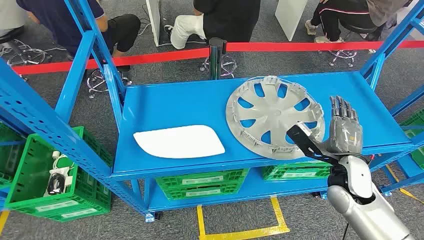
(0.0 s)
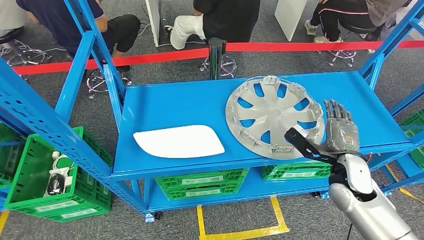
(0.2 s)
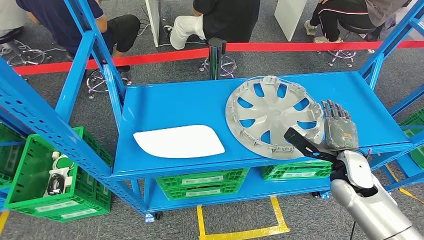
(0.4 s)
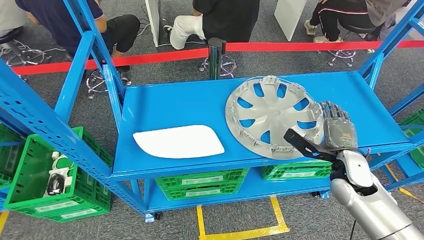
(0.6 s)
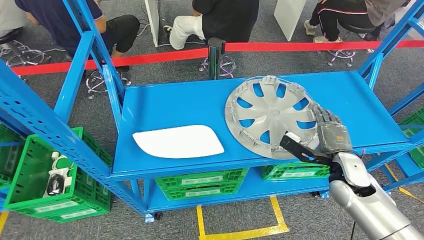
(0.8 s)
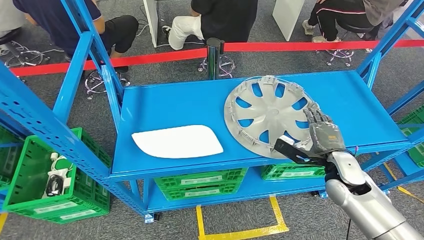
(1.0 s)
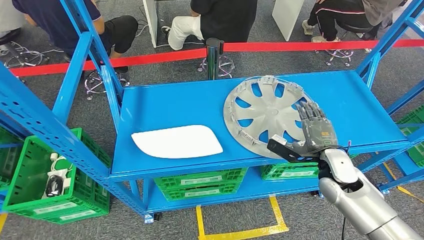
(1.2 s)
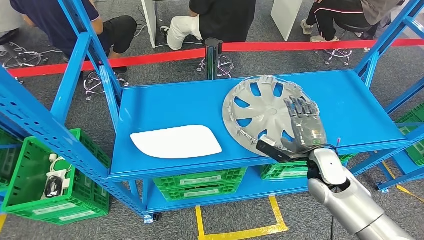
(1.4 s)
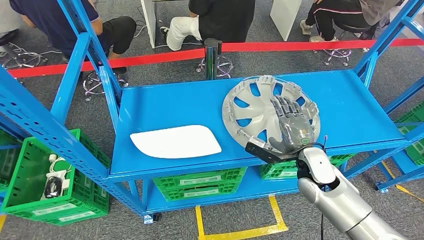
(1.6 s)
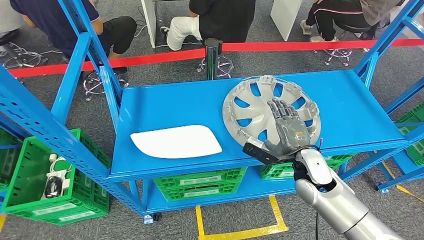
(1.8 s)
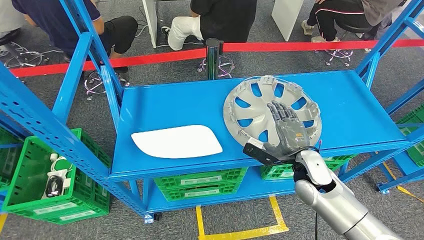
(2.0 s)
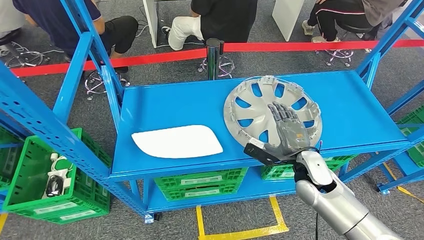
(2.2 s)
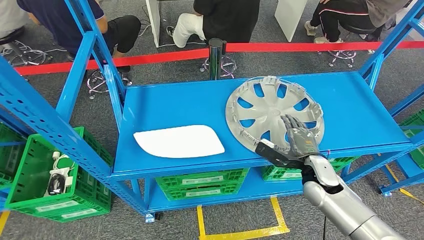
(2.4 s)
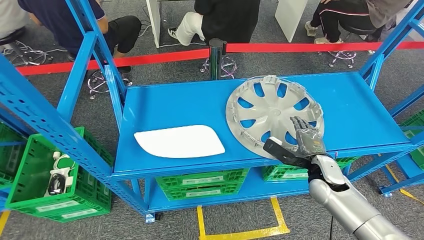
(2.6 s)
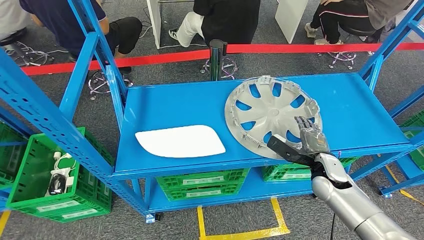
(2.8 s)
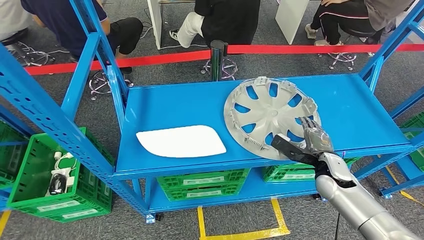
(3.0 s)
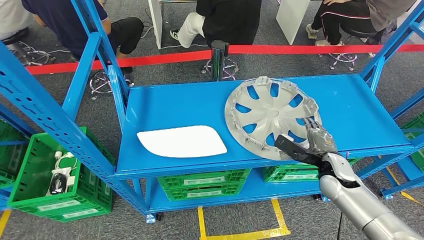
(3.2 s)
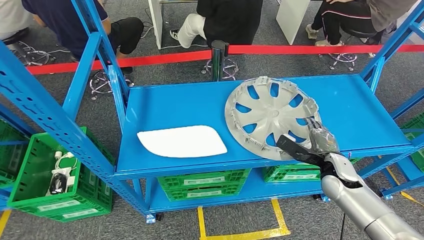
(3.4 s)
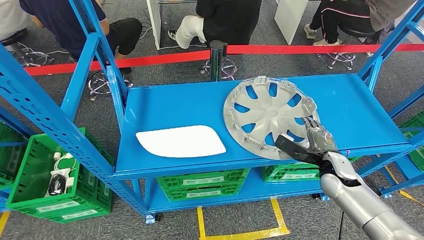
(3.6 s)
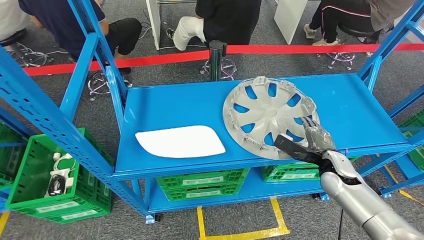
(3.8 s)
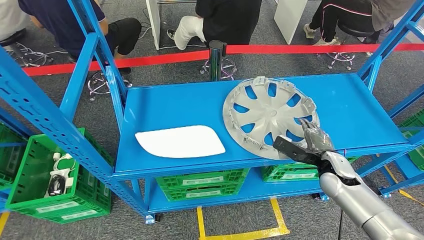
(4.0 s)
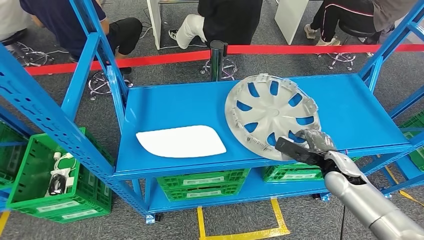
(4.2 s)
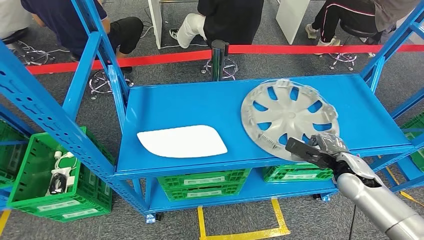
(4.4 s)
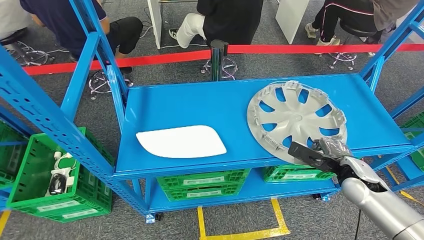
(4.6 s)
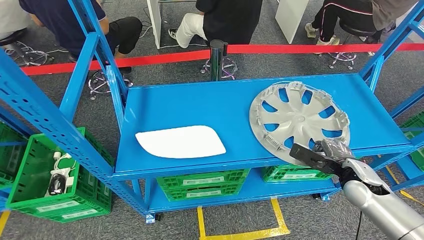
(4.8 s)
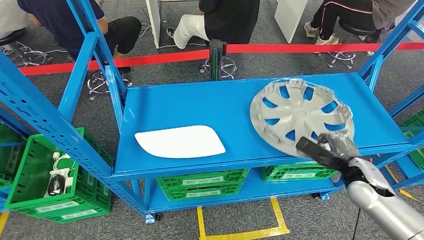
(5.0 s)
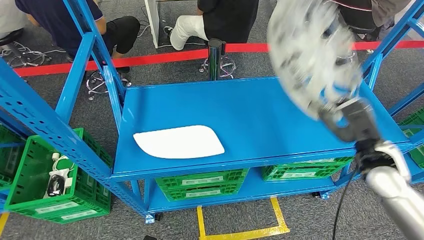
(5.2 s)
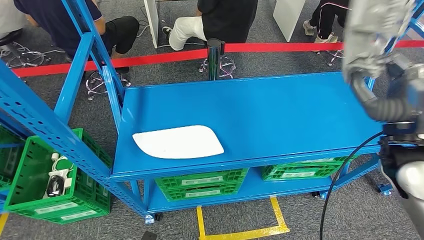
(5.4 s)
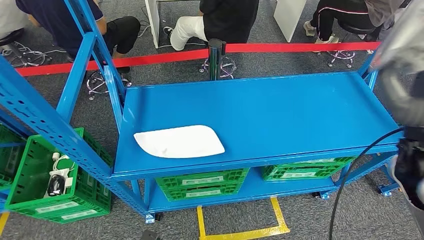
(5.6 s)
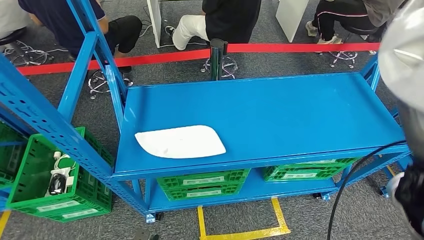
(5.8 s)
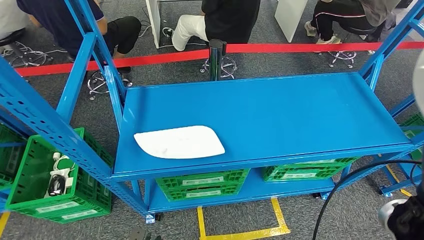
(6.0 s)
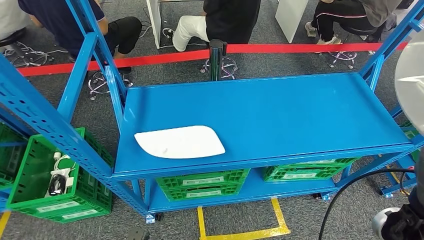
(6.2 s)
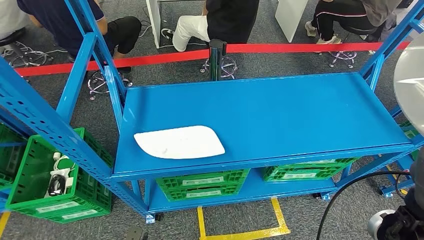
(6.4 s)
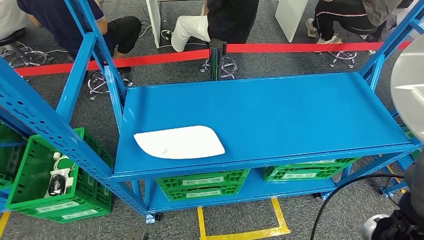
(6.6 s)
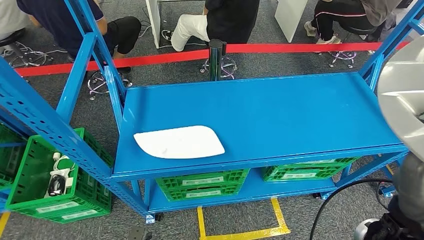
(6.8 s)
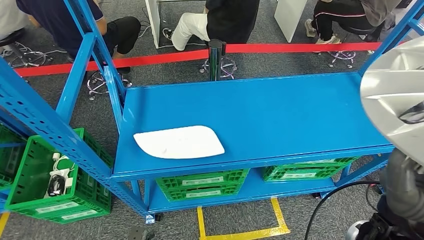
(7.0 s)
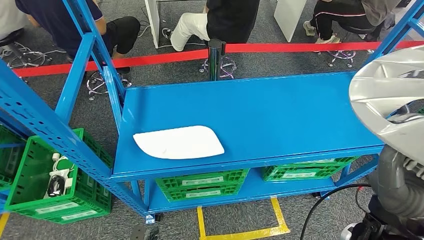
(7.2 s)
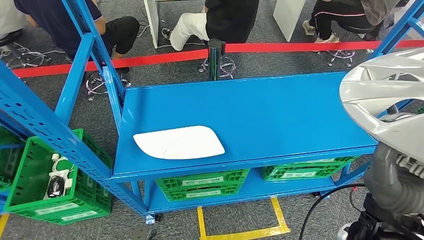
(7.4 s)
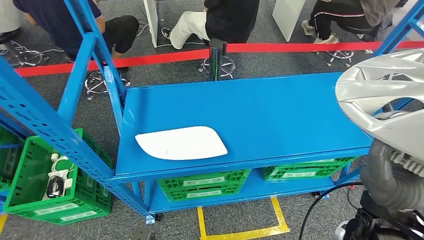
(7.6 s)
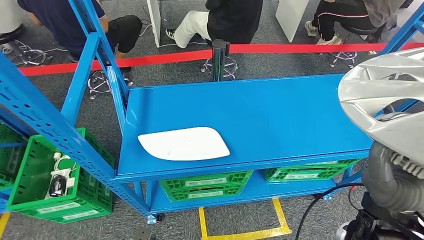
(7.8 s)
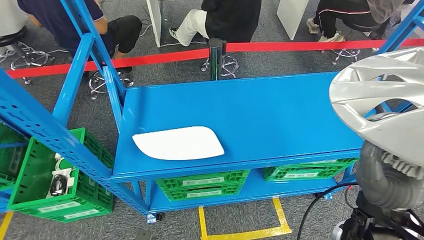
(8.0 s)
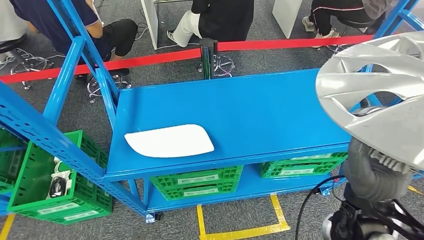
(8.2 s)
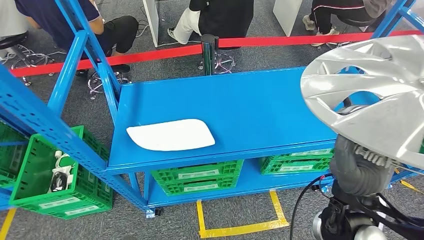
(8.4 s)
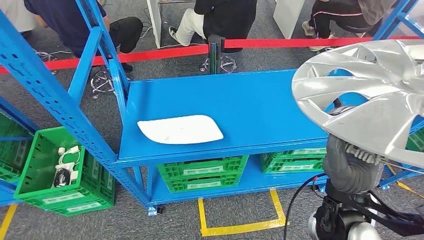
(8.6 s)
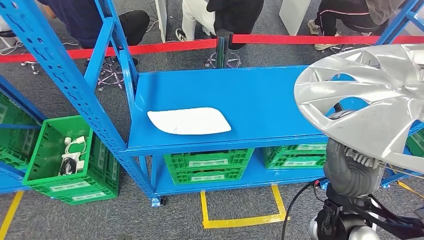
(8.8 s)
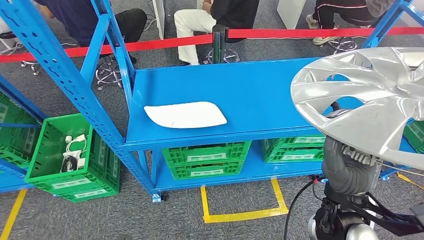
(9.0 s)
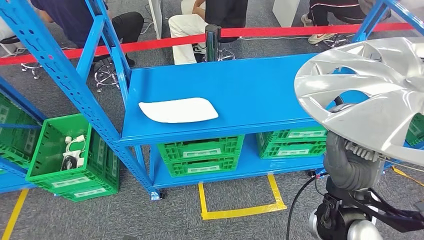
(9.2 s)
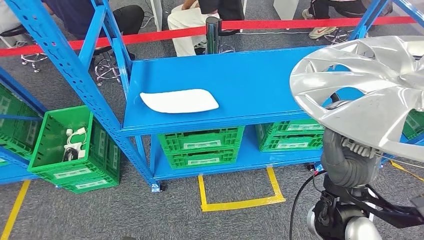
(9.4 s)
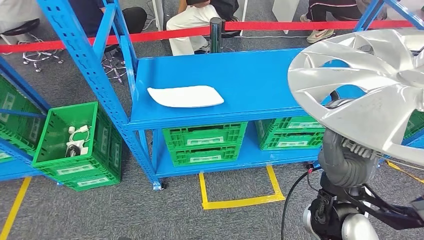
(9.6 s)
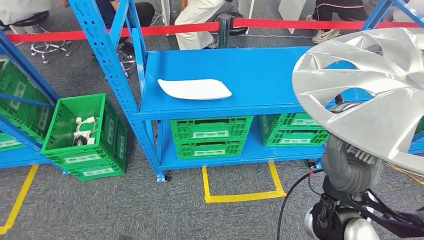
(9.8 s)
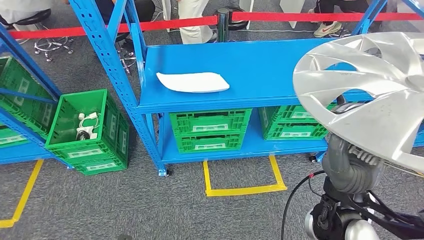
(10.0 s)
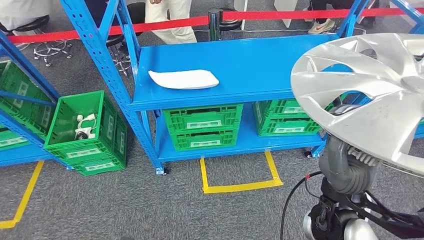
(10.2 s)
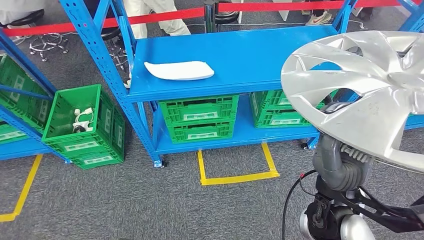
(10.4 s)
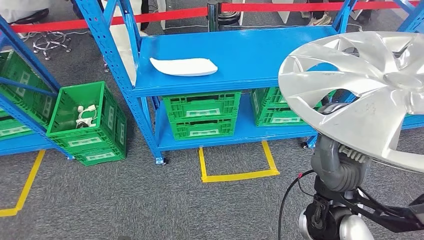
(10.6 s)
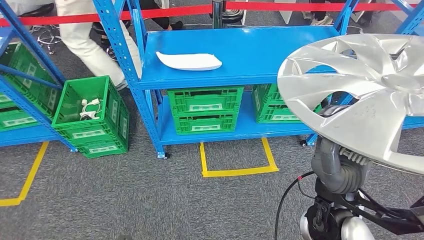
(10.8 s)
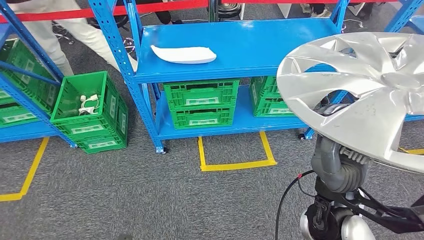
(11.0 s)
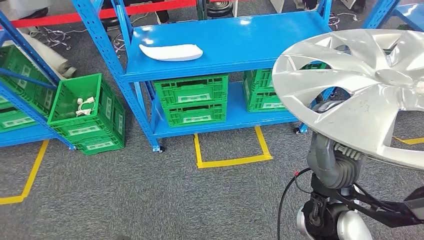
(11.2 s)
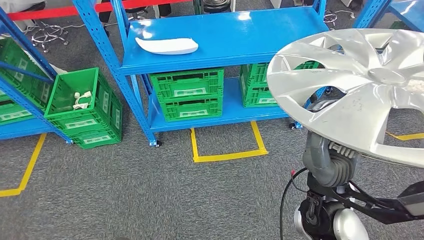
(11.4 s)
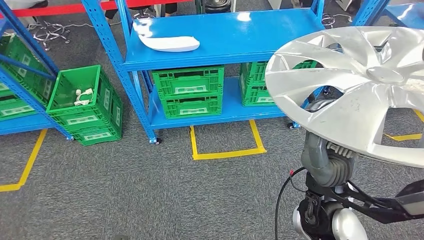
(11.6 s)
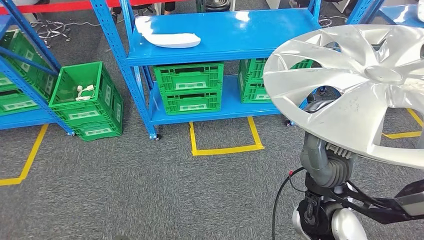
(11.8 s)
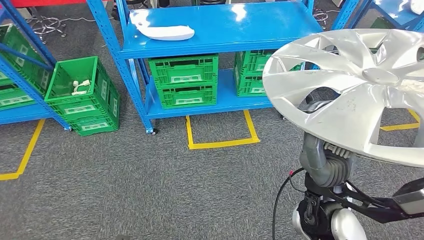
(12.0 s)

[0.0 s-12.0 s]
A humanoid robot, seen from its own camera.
Step, 0.0 to 6.8 s: Pick up the small component from the shelf.
3.0 to 4.4 s: The right hand ends up some 5 cm from where it was.

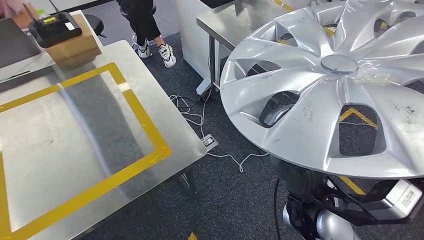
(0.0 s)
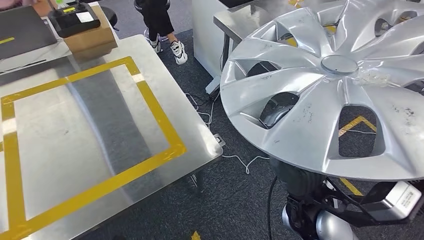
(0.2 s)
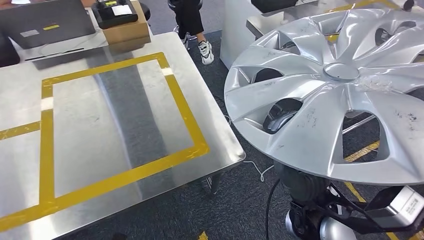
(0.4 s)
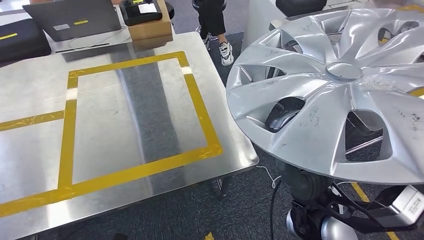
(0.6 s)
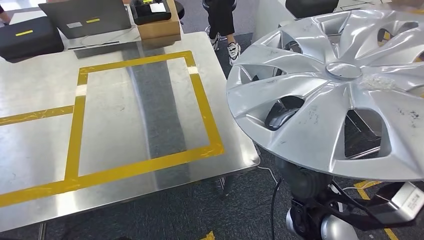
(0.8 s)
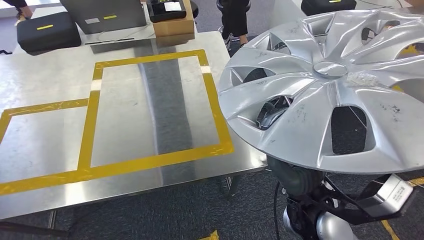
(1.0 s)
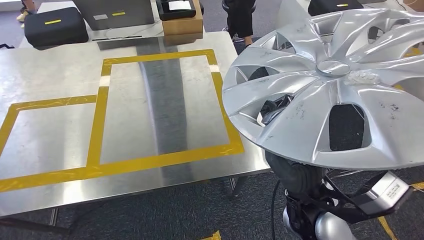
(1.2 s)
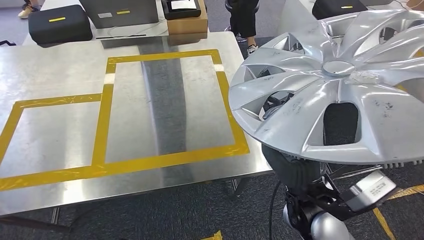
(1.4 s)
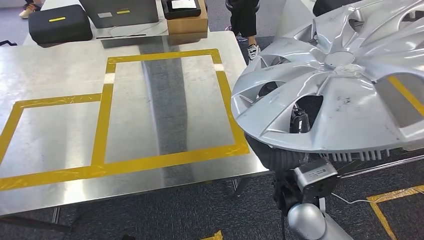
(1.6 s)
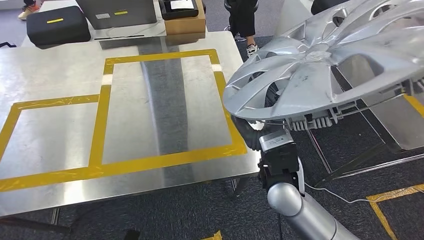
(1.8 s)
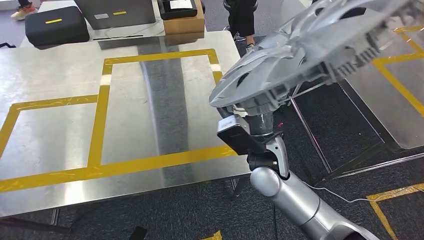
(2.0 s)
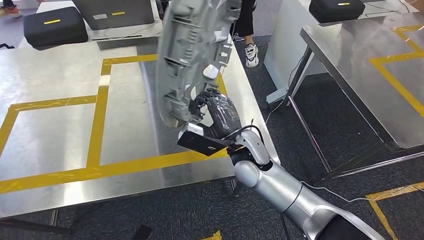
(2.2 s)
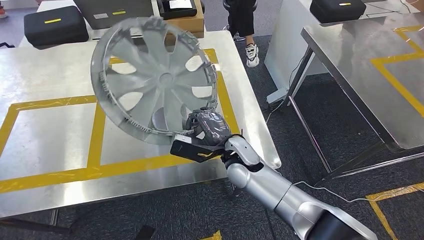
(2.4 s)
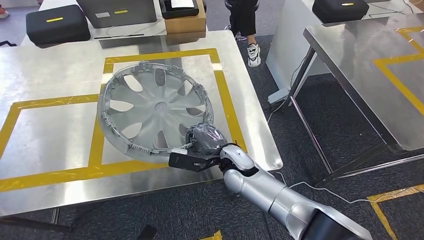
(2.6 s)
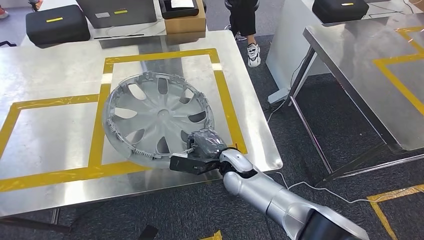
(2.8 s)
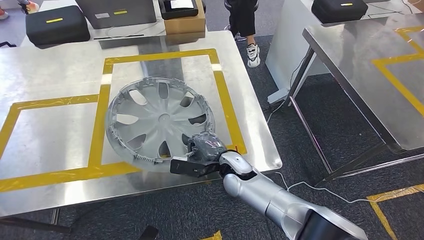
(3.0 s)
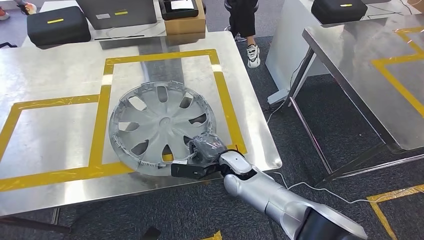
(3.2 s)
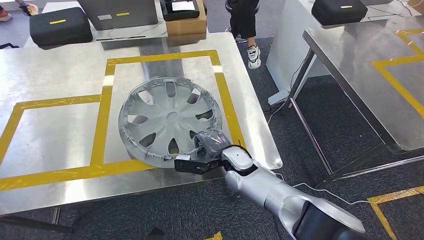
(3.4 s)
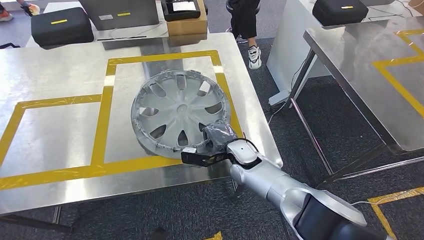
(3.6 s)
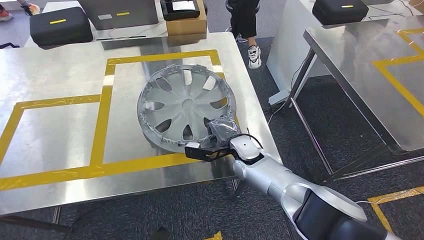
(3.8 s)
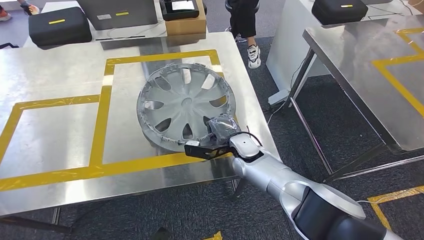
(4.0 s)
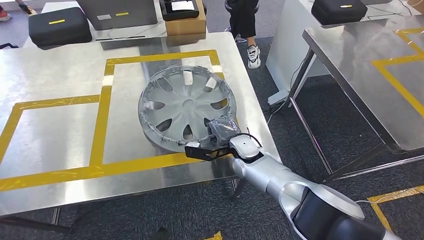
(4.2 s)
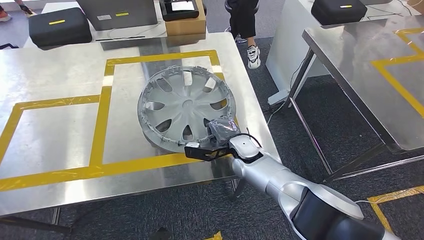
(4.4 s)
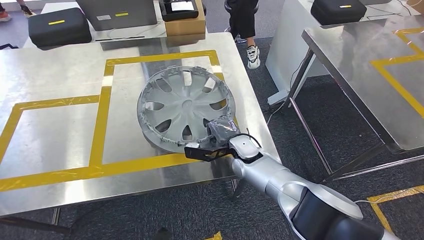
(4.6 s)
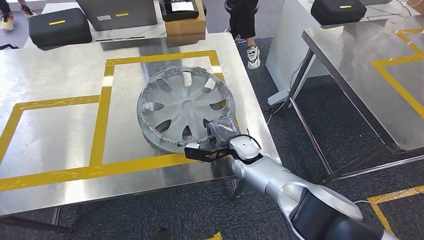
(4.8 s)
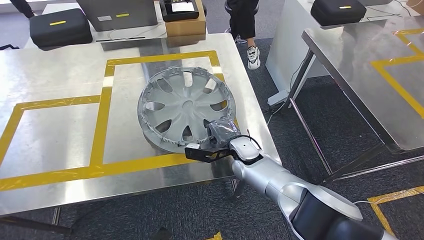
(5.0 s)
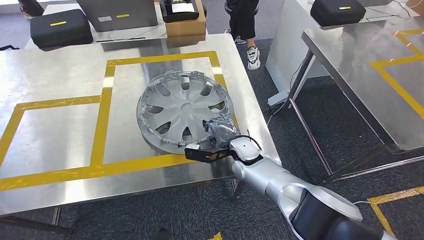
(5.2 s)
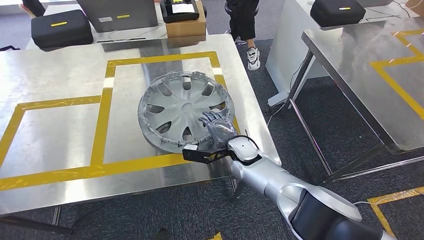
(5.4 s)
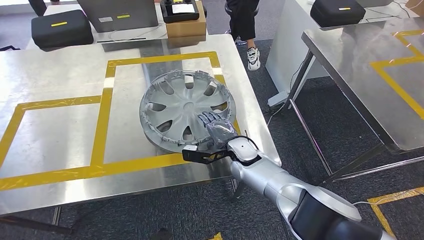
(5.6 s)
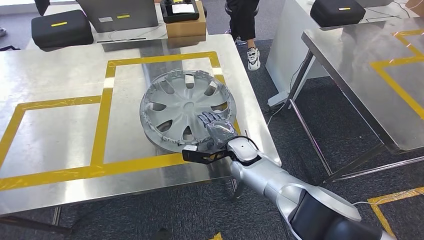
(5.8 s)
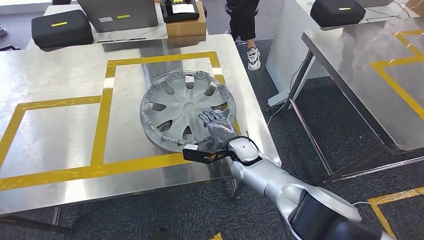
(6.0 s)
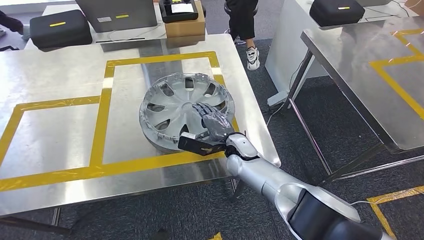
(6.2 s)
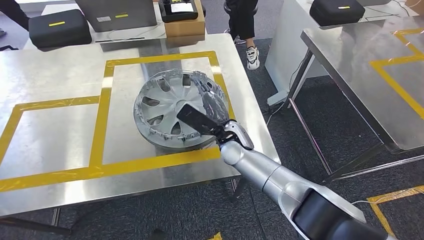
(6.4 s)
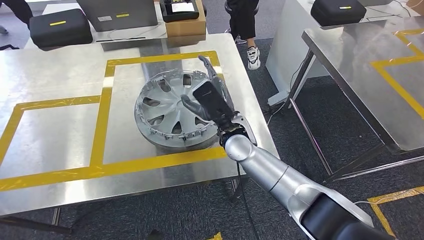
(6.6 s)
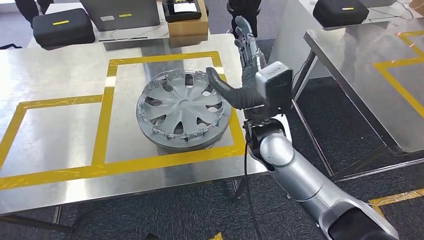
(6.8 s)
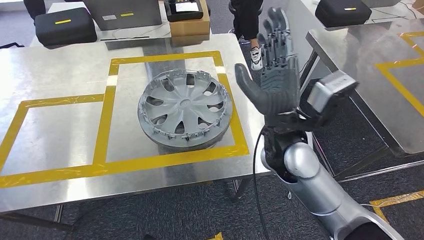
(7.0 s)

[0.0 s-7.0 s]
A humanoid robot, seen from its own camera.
Step, 0.0 to 2.2 s: Bring the small component to the front of the workbench.
4.2 to 5.6 s: The two hands keep their place.
